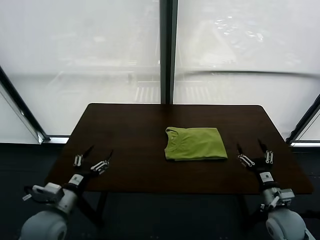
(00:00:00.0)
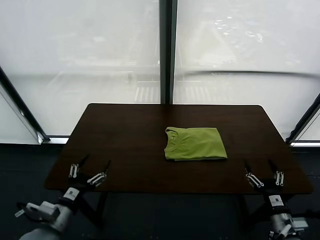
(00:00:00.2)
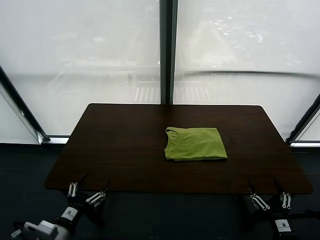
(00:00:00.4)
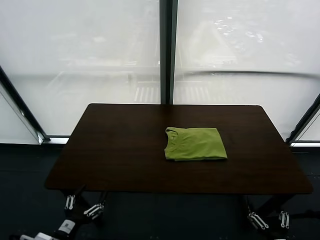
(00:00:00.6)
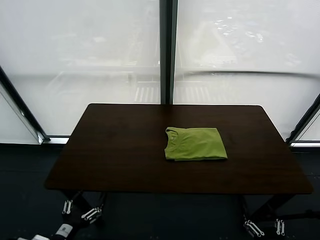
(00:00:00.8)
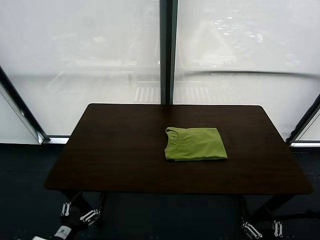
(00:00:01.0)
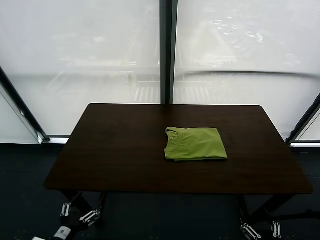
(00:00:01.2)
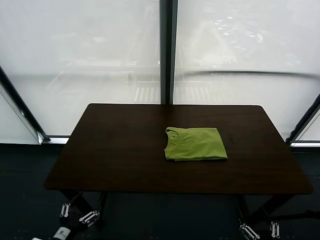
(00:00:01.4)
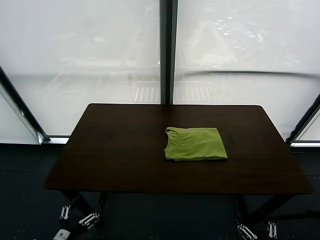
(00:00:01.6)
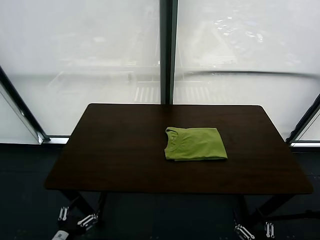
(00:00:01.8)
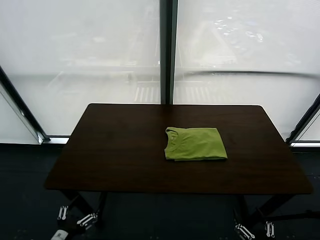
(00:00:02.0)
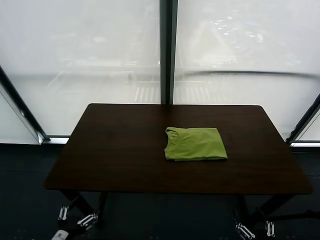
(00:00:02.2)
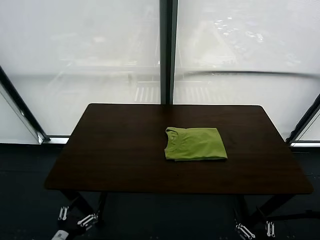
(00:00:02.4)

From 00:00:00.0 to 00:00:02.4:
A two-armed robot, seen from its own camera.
Task of the whole recording: fold and organize the clothes.
From 00:00:00.0 to 00:00:01.2: The left gripper heads backward, covering roughly 15 cm, while the right gripper shifts roughly 25 cm backward.
From 00:00:01.2 to 00:00:02.4: Neither gripper changes place.

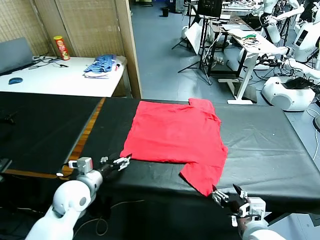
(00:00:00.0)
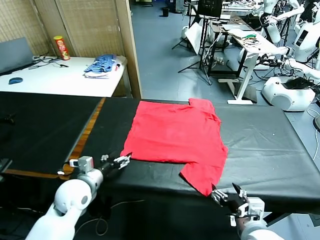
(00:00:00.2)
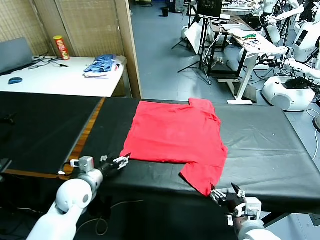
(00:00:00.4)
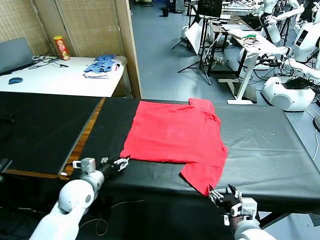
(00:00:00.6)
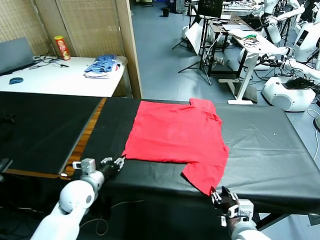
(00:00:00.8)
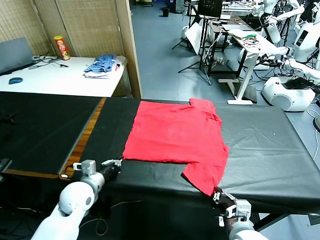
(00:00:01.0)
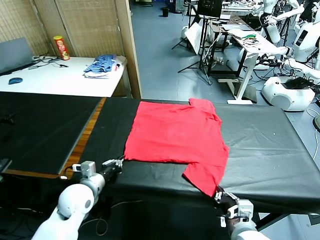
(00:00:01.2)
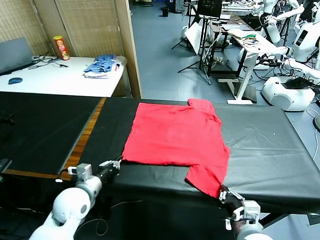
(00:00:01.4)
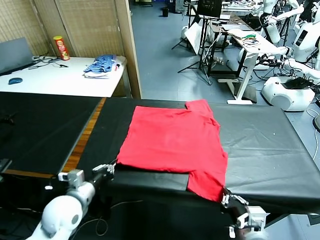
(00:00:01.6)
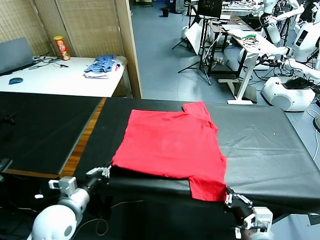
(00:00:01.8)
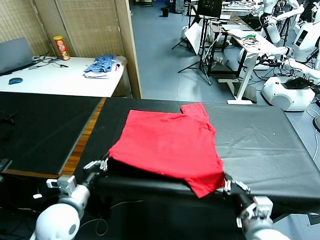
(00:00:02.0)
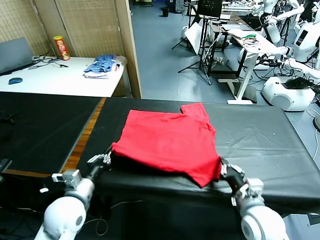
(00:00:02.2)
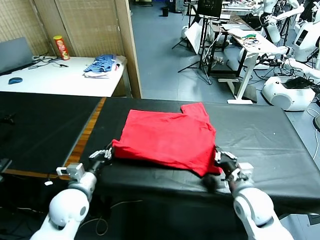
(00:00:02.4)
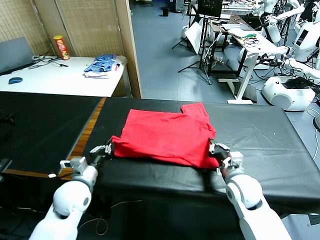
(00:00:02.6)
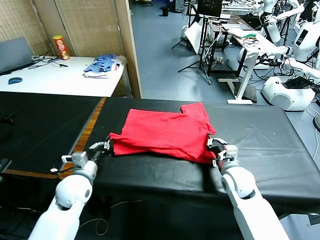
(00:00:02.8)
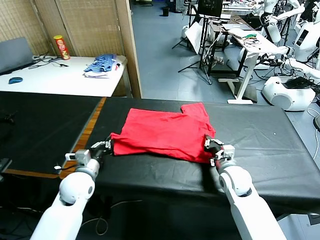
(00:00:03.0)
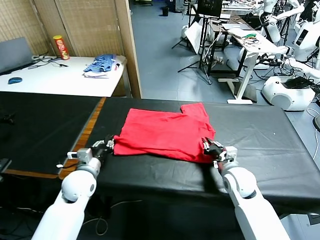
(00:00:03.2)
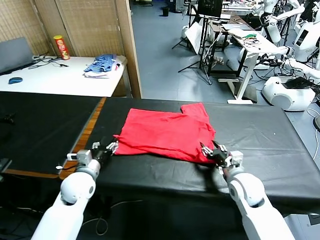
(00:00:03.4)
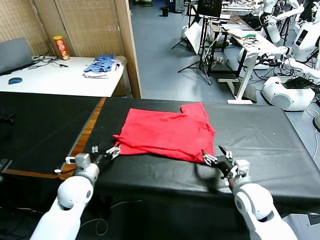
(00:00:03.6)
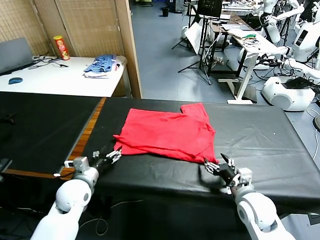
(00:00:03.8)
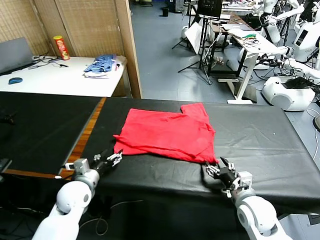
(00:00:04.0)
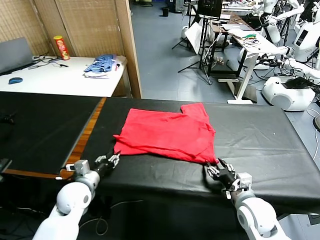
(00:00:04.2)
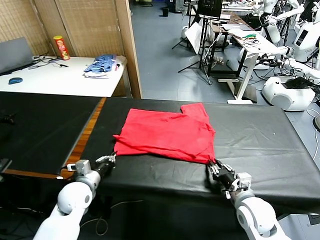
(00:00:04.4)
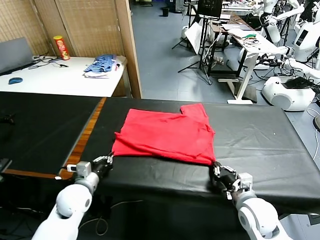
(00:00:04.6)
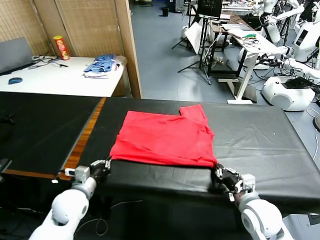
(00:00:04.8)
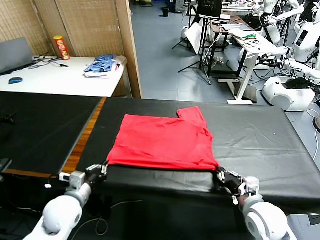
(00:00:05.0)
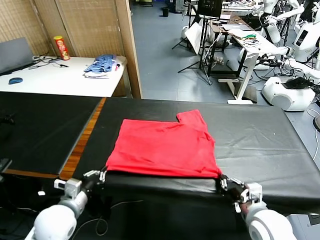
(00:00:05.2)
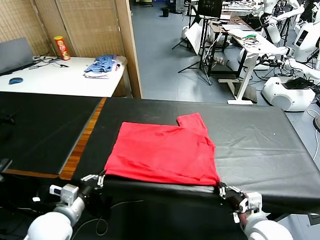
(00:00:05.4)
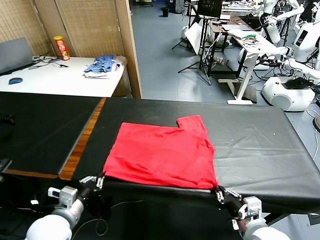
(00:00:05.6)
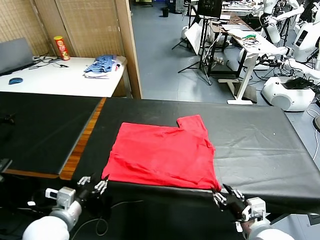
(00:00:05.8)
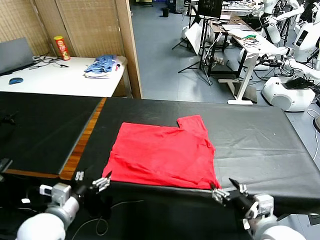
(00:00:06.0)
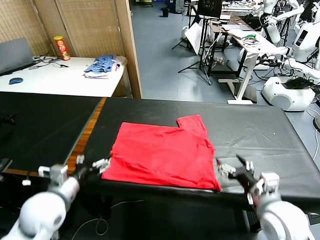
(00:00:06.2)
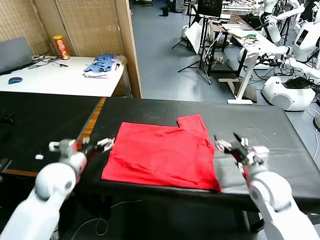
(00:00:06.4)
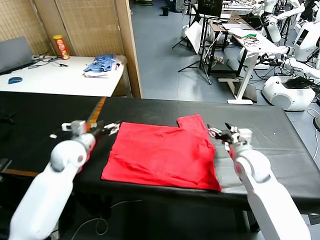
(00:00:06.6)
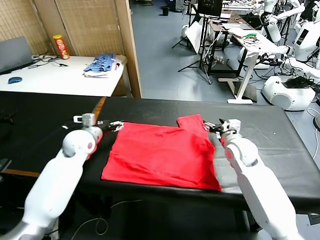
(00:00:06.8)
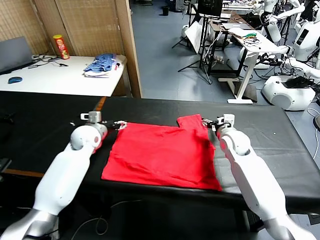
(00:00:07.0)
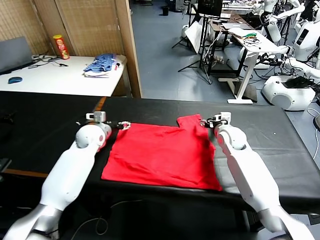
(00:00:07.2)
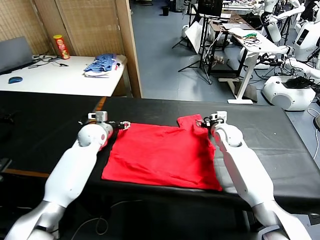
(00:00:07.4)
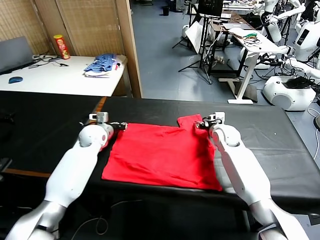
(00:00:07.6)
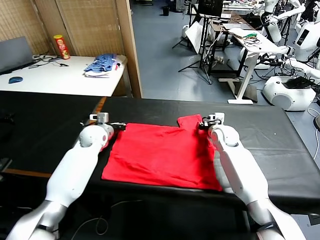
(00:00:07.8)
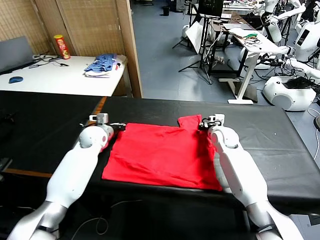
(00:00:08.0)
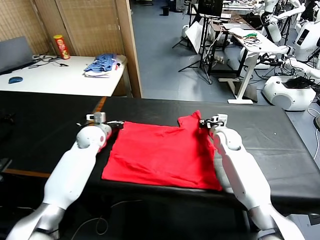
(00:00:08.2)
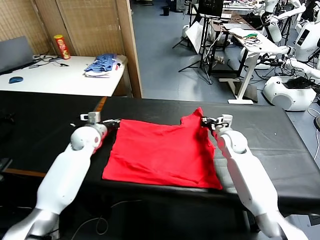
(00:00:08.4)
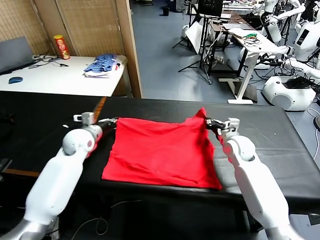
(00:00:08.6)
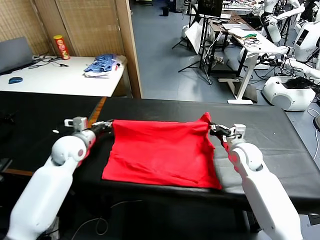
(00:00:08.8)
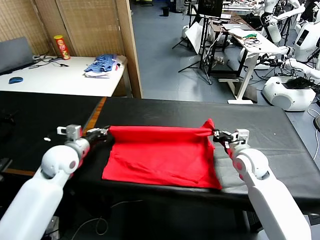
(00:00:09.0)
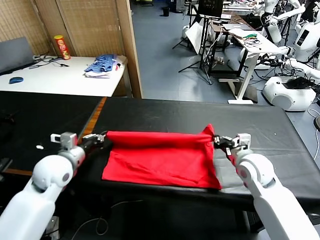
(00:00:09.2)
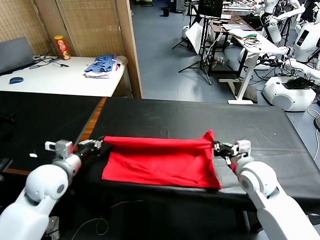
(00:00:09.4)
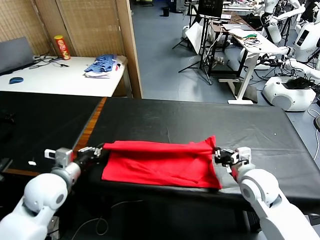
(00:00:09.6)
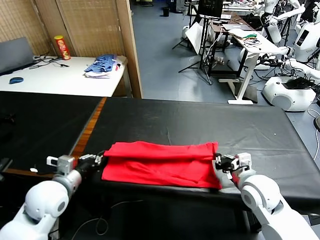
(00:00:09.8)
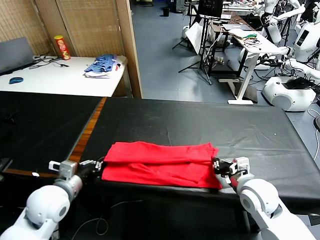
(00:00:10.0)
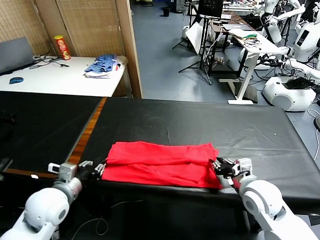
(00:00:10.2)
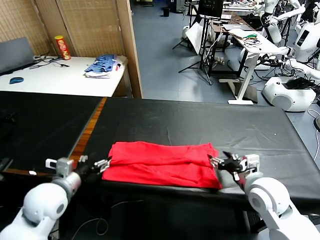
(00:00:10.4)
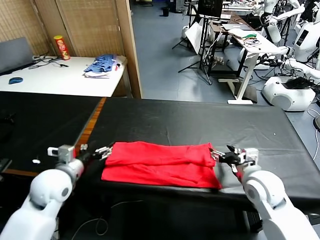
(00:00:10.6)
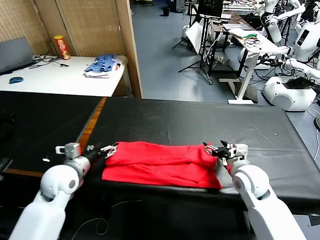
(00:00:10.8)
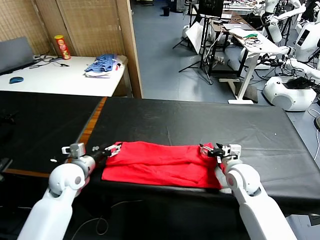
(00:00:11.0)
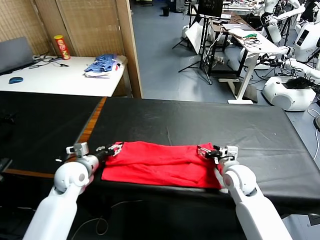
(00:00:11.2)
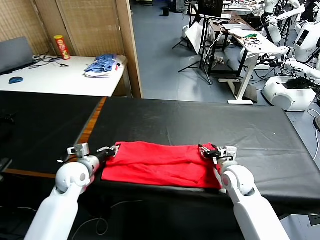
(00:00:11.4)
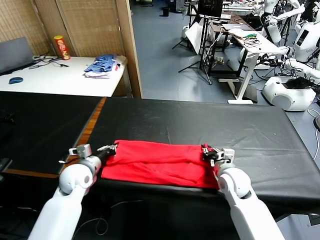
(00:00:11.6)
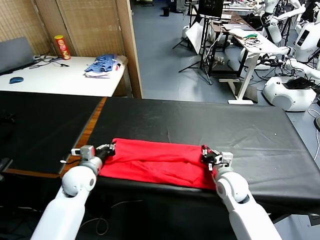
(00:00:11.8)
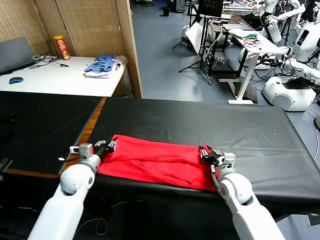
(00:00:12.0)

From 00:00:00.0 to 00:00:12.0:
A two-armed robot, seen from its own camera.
Task of the whole recording: fold and organize the clothes.
Step, from 00:00:00.0 to 00:00:01.2: use both grippers simultaneously to clamp the lower edge of the clothing fabric.
Step, from 00:00:01.4 to 00:00:03.6: use both grippers to drag the lower edge of the fabric forward and fold it over the upper edge.
Step, from 00:00:03.8 to 00:00:05.8: Drag the clothes downward with both gripper.
Step, from 00:00:06.0 to 00:00:08.0: use both grippers simultaneously to clamp the upper edge of the clothing fabric.
Step, from 00:00:08.2 to 00:00:10.4: use both grippers to drag the upper edge of the fabric backward and fold it over the lower edge.
From 00:00:01.6 to 00:00:03.0: The right gripper moves forward, some 20 cm. The left gripper shifts approximately 10 cm forward.
From 00:00:03.0 to 00:00:04.4: The right gripper travels backward by about 10 cm, and opens and closes again, while the left gripper opens and closes again.
From 00:00:04.4 to 00:00:06.0: The right gripper shifts approximately 10 cm upward, goes backward and returns, some 10 cm each way, and opens its fingers; the left gripper is displaced backward and upward by roughly 15 cm, and opens its fingers.
From 00:00:06.0 to 00:00:07.6: The grippers both shift forward by about 30 cm. The right gripper closes its fingers. Meanwhile the left gripper closes its fingers.
From 00:00:07.6 to 00:00:09.0: The two grippers go roughly 15 cm backward.
From 00:00:09.0 to 00:00:10.4: The grippers both shift backward by roughly 10 cm. The right gripper opens up, while the left gripper opens.
From 00:00:10.4 to 00:00:12.0: The right gripper shifts approximately 10 cm downward, and closes its fingers. Meanwhile the left gripper moves forward and downward, about 15 cm, and closes up.

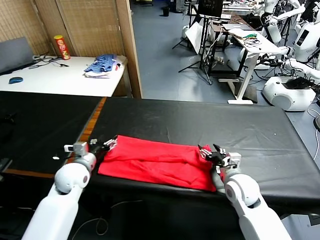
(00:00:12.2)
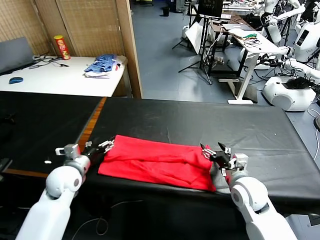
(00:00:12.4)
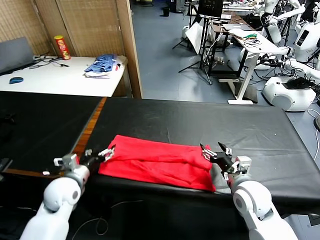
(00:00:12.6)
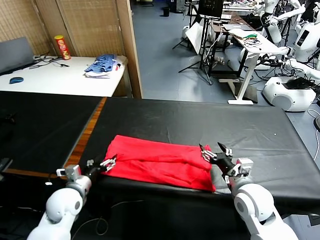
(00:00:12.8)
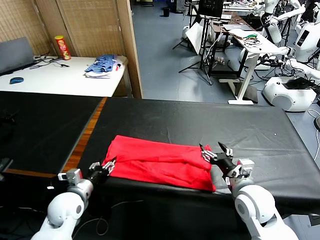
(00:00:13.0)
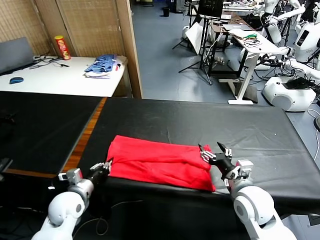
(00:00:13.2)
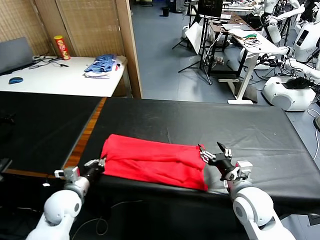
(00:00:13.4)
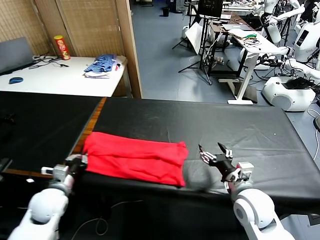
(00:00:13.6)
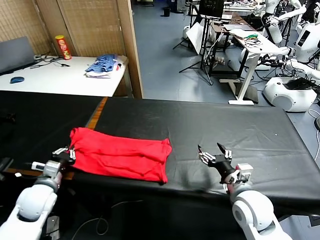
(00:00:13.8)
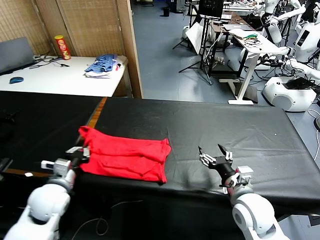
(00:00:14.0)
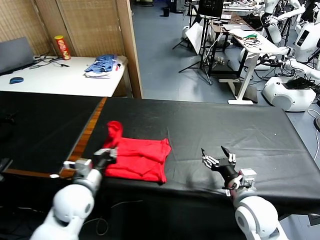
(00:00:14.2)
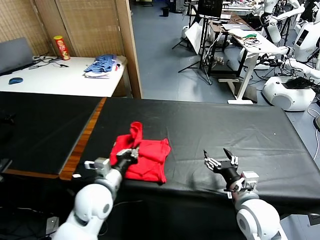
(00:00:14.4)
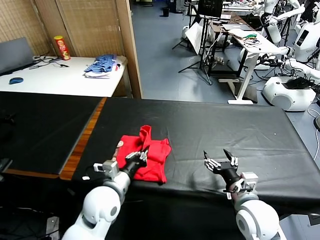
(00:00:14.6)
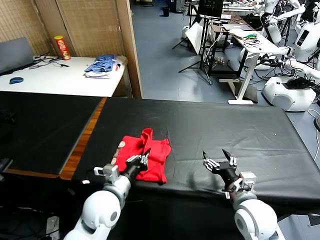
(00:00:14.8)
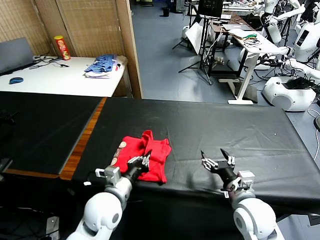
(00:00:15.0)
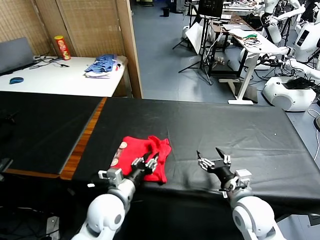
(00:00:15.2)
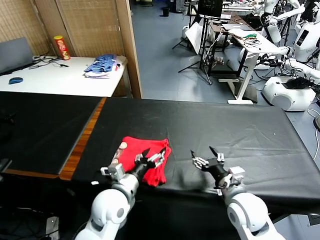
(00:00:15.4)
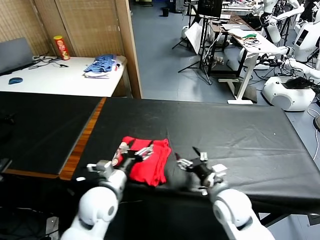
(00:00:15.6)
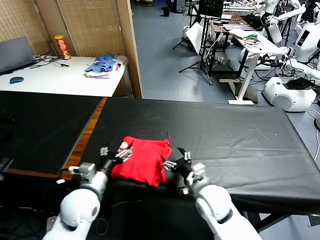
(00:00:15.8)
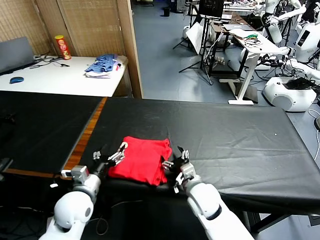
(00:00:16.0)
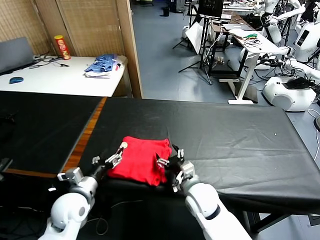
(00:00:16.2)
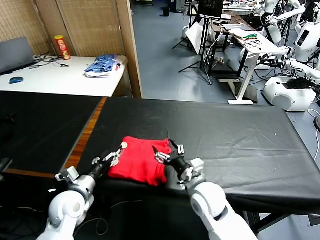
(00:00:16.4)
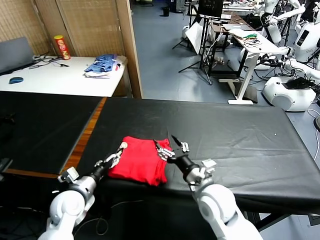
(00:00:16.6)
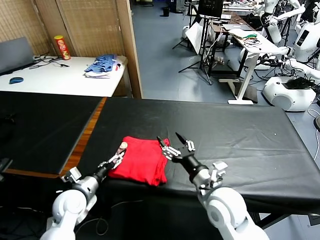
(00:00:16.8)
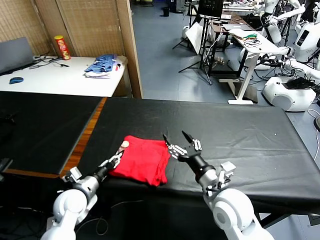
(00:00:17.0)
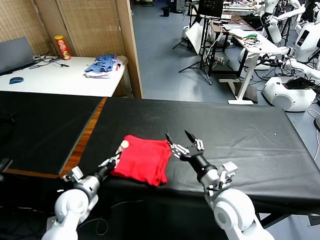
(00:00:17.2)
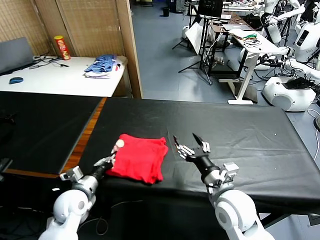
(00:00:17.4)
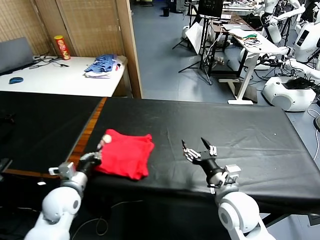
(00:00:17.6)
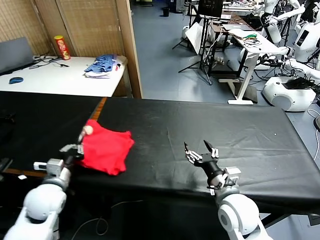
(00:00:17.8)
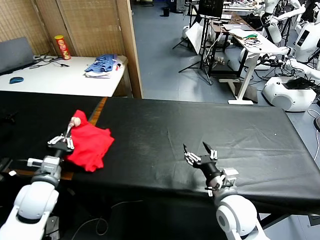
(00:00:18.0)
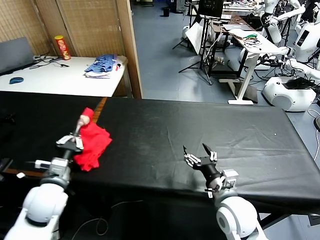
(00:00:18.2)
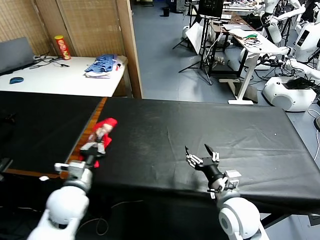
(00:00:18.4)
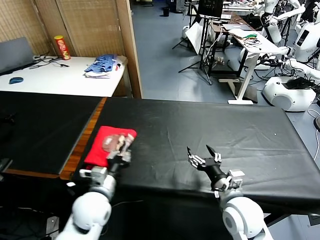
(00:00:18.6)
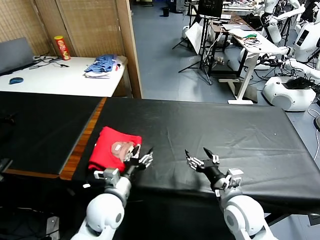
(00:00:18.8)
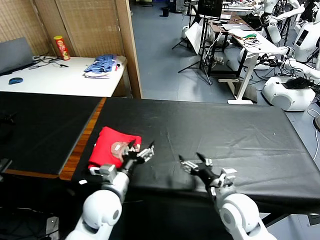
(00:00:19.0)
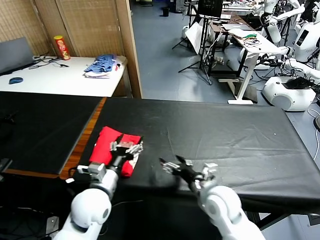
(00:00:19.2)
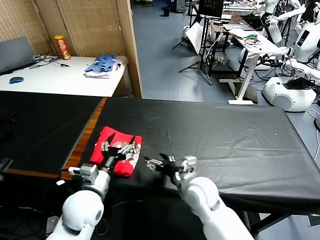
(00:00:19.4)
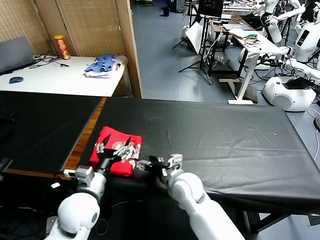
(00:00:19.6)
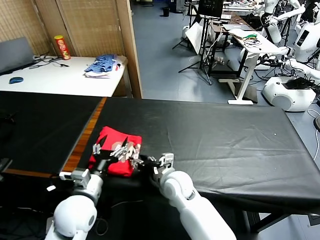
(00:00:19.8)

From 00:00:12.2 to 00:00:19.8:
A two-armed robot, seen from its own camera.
Task of the whole recording: fold and organize the clothes.
Step, from 00:00:13.4 to 00:00:15.6: use the left gripper to drag the left edge of the fabric to the left and folds it over the right edge.
Step, from 00:00:15.8 to 00:00:19.0: Flip the folded clothes over with left gripper.
From 00:00:12.2 to 00:00:13.8: The right gripper shifts roughly 5 cm backward. Meanwhile the left gripper is displaced backward and to the left by some 10 cm, and closes up.
From 00:00:13.8 to 00:00:15.2: The left gripper travels to the right by roughly 20 cm, and opens its fingers.
From 00:00:15.2 to 00:00:16.8: The right gripper is displaced to the left by approximately 5 cm. The left gripper is displaced to the left by approximately 15 cm, and opens up.
From 00:00:16.8 to 00:00:18.2: The left gripper is displaced upward by some 10 cm, and closes.
From 00:00:18.2 to 00:00:19.8: The right gripper moves to the left and forward, about 20 cm, while the left gripper is displaced to the right by about 10 cm, and opens up.
